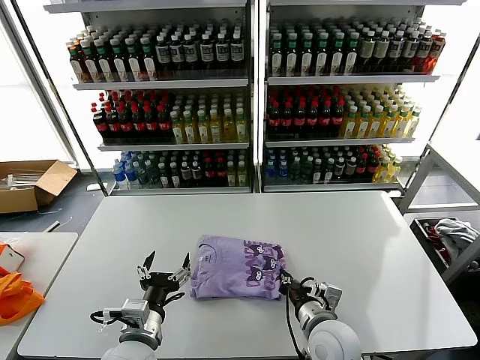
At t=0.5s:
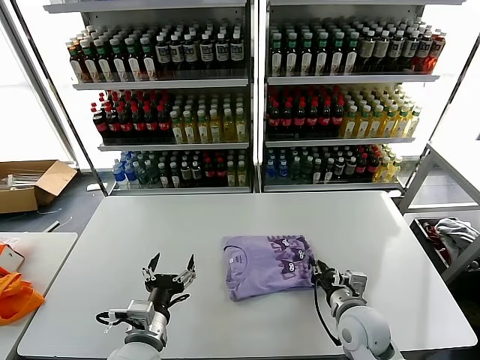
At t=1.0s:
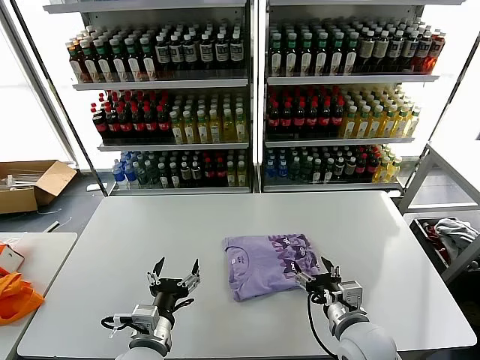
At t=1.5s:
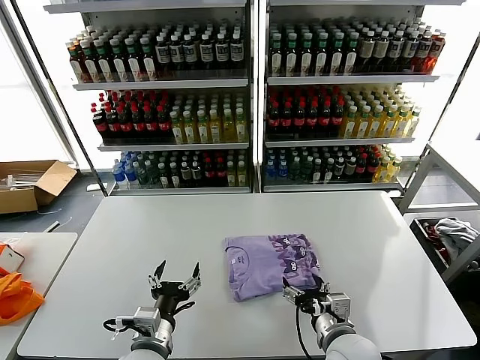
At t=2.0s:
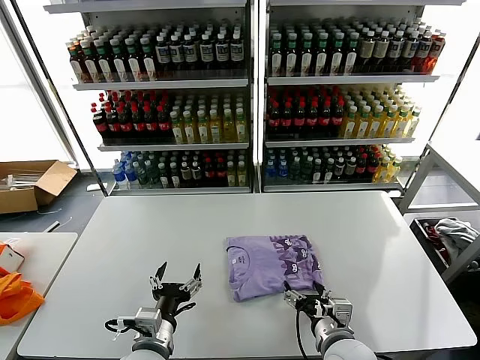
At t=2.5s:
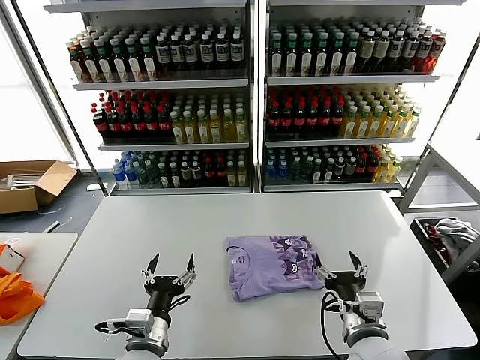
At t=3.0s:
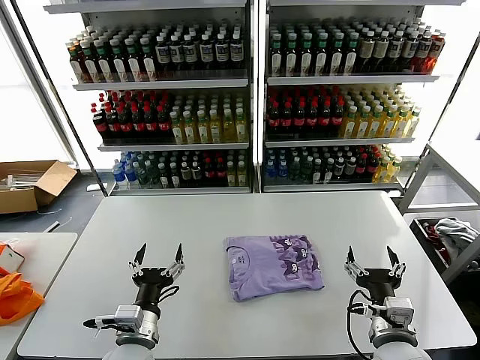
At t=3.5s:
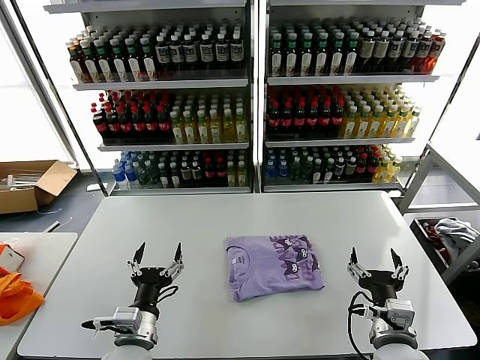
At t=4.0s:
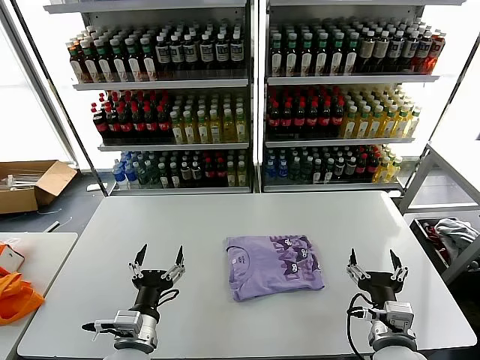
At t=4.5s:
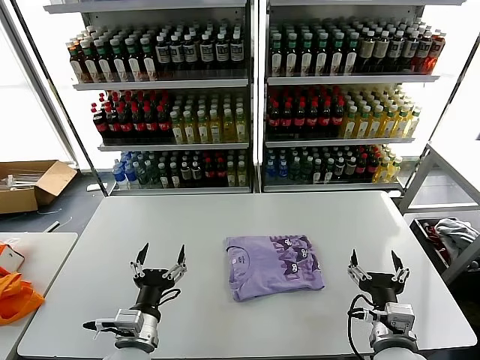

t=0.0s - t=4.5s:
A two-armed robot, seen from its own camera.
Task of the whole recording: fold and organize the clothes.
Step, t=0.0s - t=2.0s: Drag the clothes to the center of the table.
t=0.0s - t=2.0s: The right gripper opens up.
t=2.0s - t=4.5s: The right gripper goes some 5 cm to the right.
